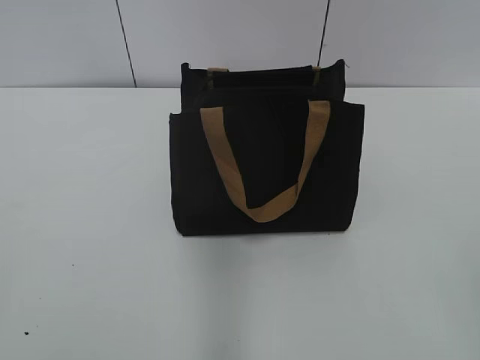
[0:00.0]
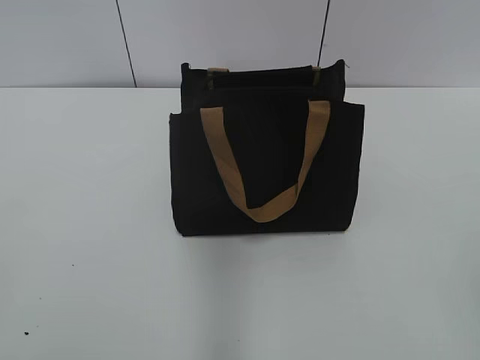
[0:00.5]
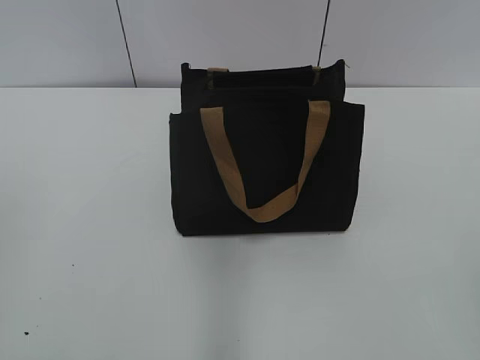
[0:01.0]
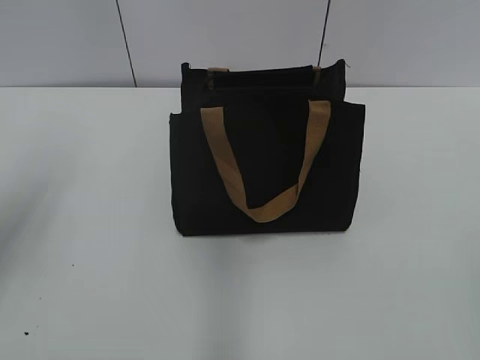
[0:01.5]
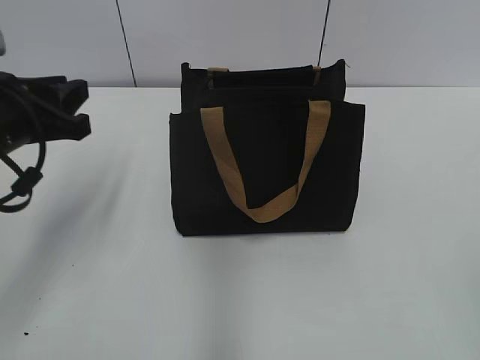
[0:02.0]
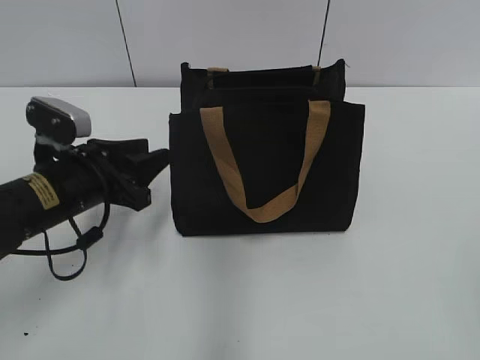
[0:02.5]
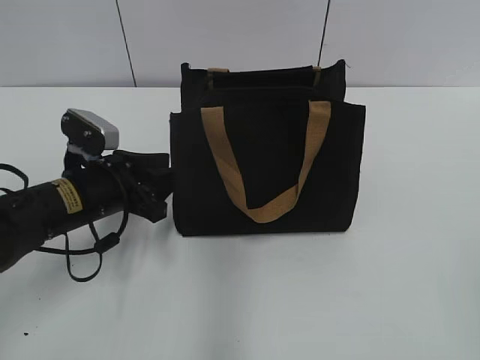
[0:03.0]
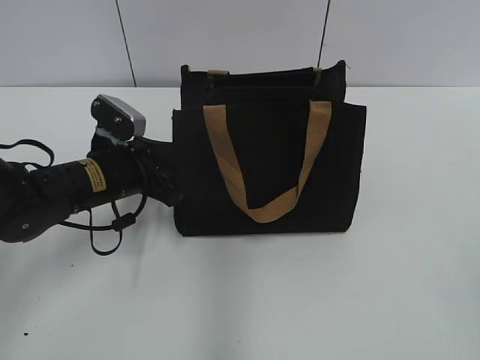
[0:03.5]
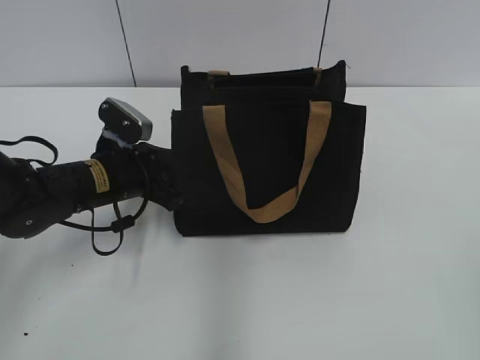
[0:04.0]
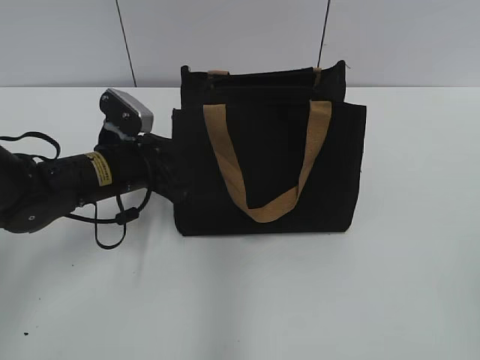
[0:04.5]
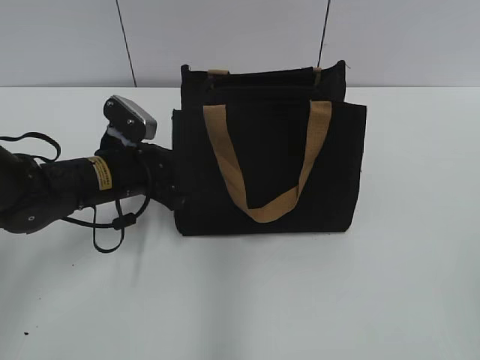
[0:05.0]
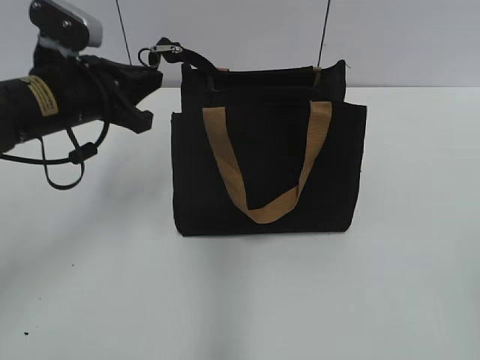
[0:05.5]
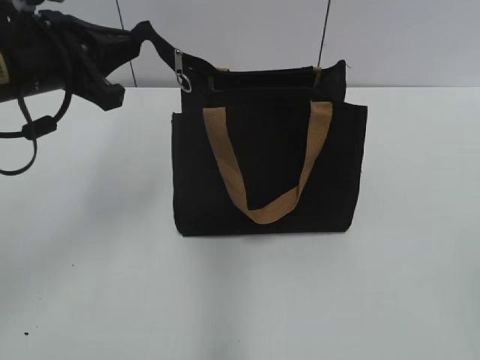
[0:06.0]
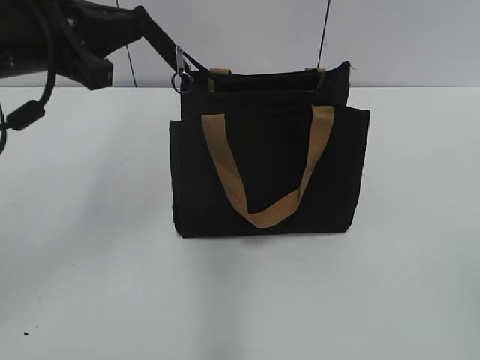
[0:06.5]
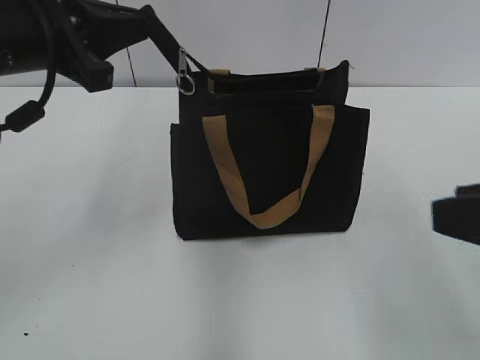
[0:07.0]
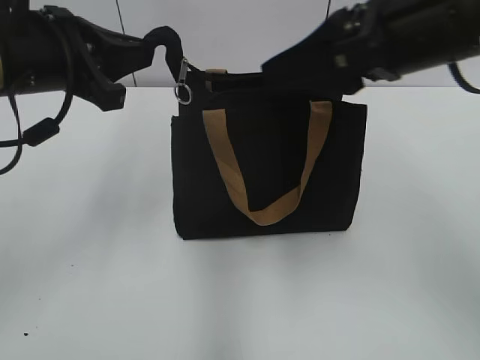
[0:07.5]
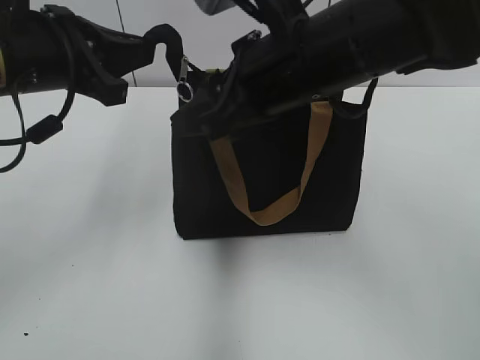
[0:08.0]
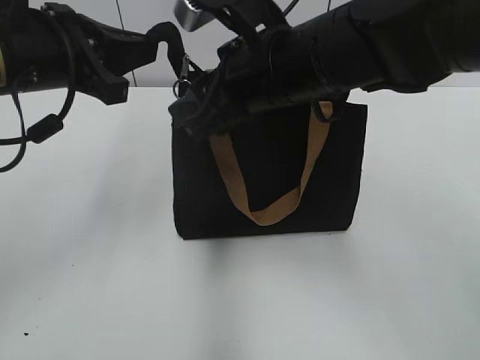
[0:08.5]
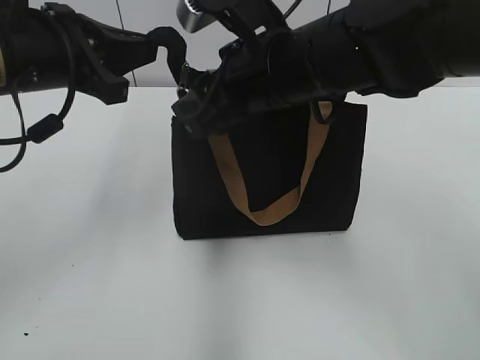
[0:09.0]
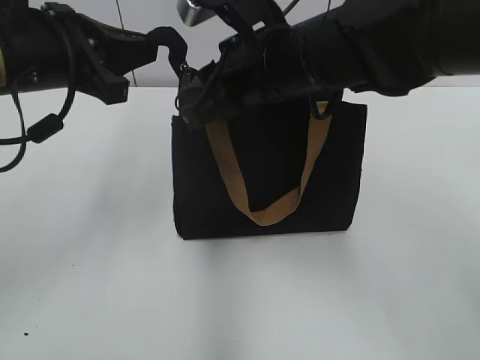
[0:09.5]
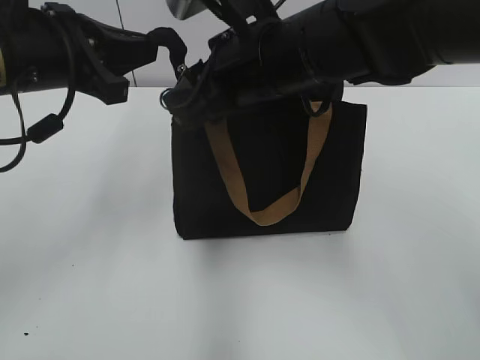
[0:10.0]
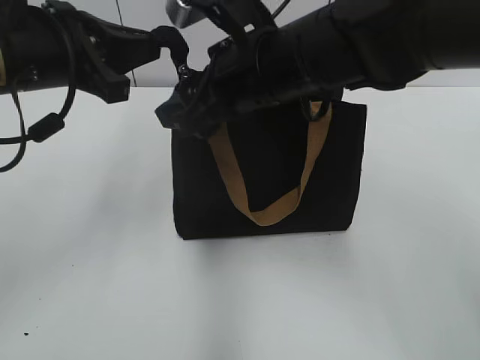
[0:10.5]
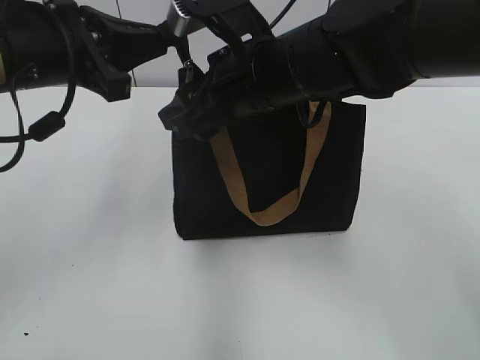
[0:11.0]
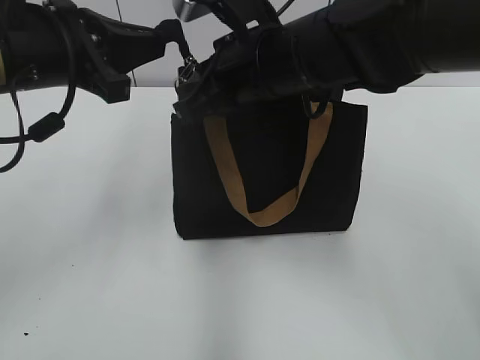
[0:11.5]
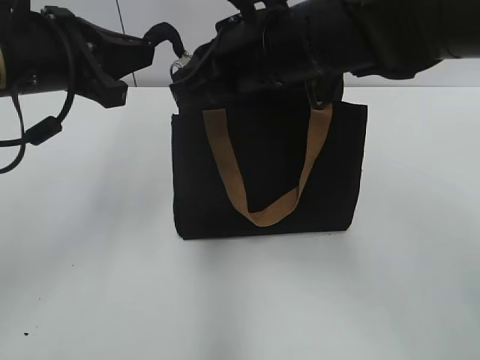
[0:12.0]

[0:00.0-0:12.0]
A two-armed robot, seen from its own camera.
0:02.0 to 0:04.0: The left gripper is displaced downward, to the right and forward by about 15 cm.
0:04.0 to 0:06.0: The left gripper is displaced upward by roughly 15 cm, and closes up.
0:06.0 to 0:08.0: The right gripper travels forward and to the left by approximately 35 cm.
0:08.0 to 0:10.0: The grippers make only small movements.
0:10.0 to 0:12.0: The right gripper opens, then closes again.

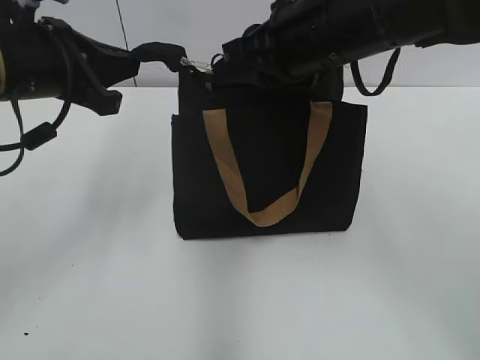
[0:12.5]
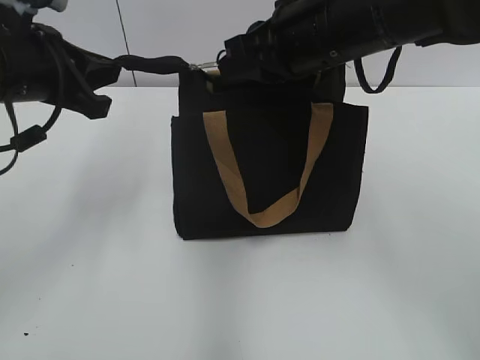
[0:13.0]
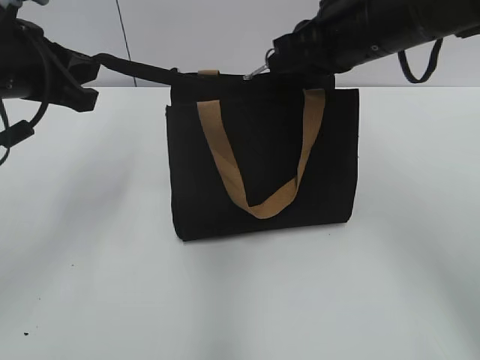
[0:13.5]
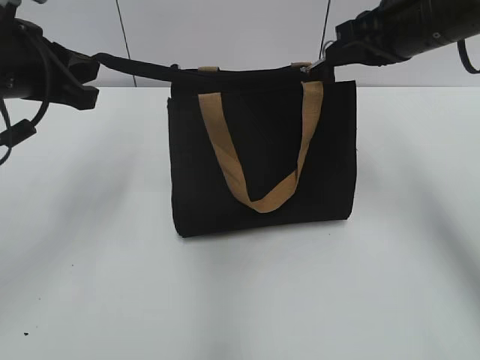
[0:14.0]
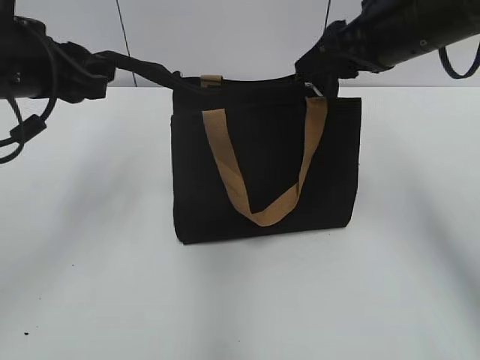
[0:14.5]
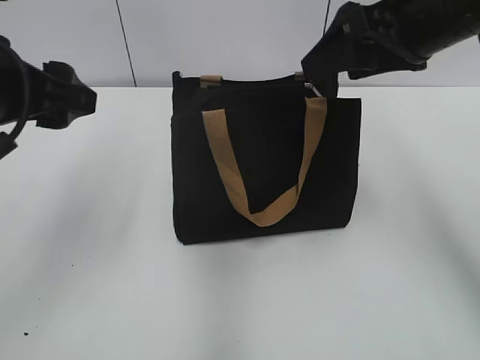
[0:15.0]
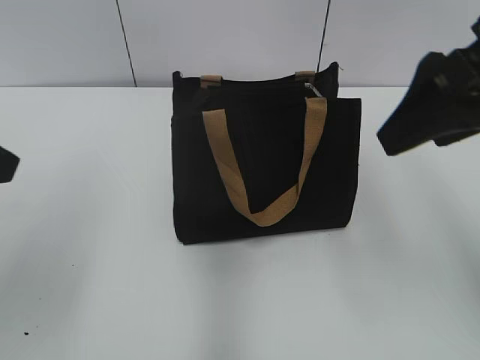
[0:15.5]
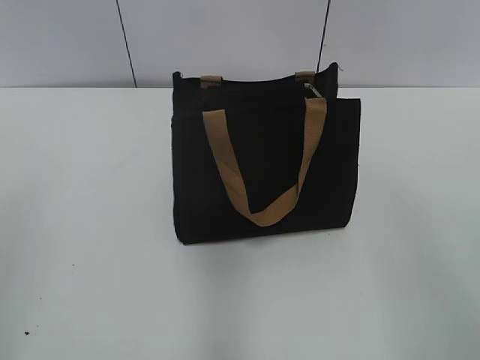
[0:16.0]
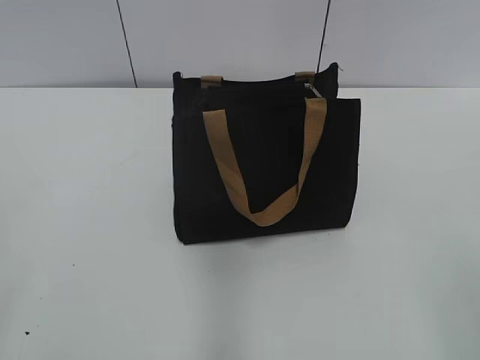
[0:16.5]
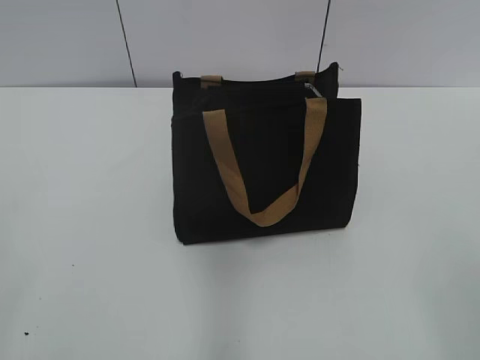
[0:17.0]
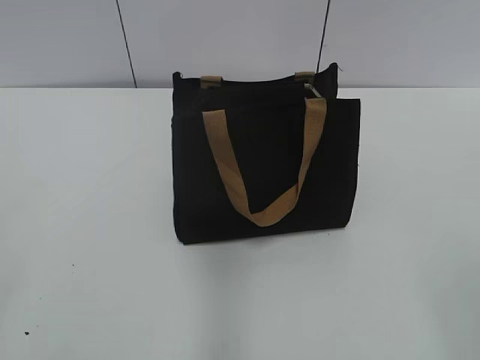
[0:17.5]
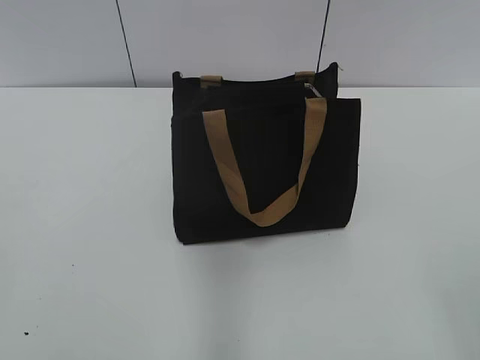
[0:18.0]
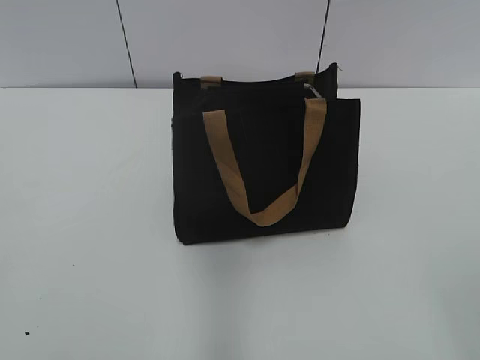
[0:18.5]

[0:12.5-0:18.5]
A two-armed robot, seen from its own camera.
0:12.5 to 0:14.5: The left gripper opens up. The right gripper shifts some 10 cm to the right, and opens its fingers.
0:14.5 to 0:16.5: The right gripper shifts some 35 cm backward, and opens; the left gripper heads backward and to the left, covering some 30 cm, and opens its fingers.
